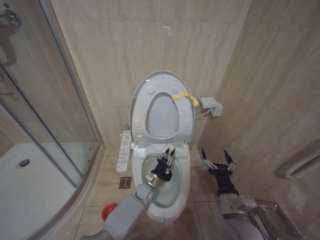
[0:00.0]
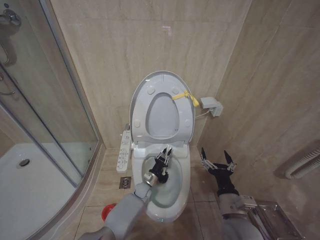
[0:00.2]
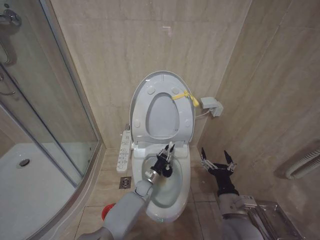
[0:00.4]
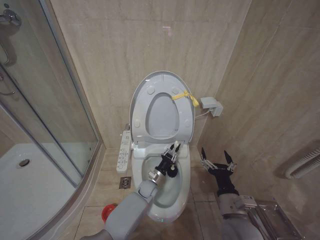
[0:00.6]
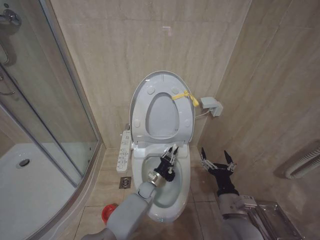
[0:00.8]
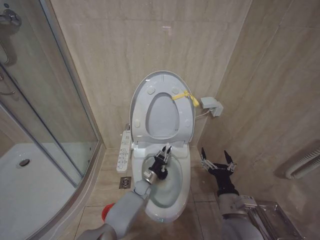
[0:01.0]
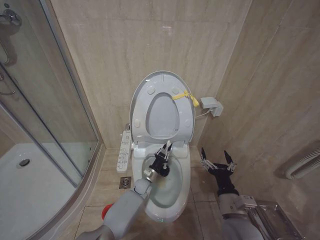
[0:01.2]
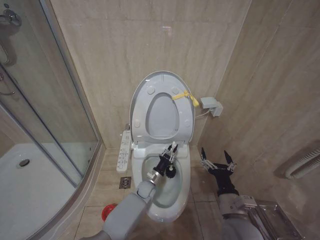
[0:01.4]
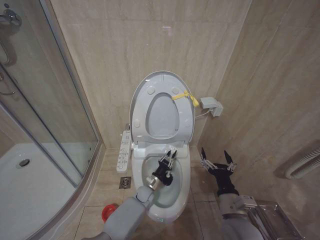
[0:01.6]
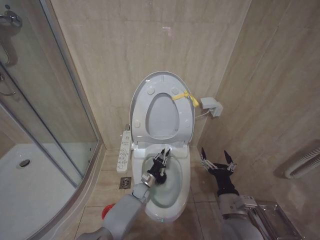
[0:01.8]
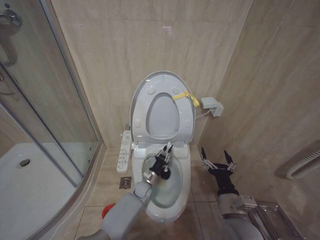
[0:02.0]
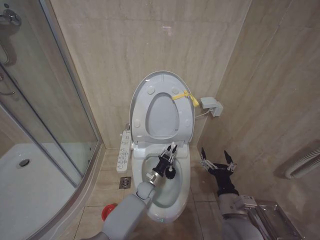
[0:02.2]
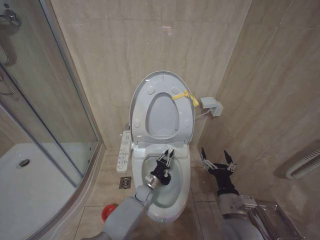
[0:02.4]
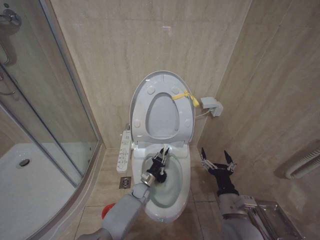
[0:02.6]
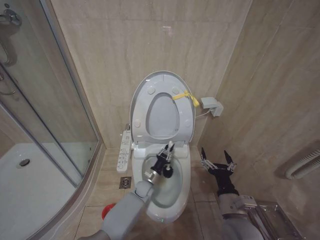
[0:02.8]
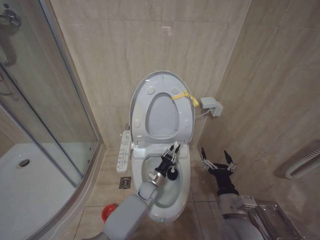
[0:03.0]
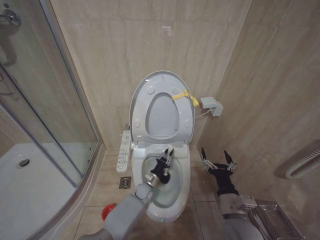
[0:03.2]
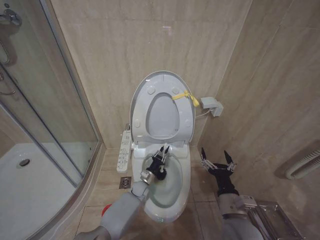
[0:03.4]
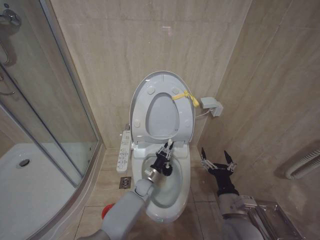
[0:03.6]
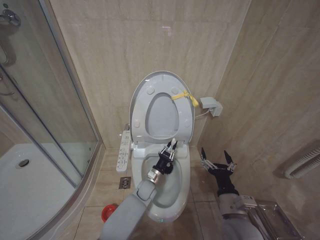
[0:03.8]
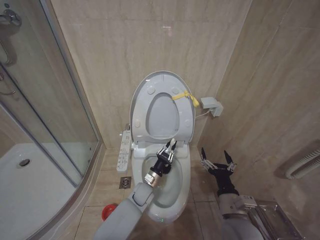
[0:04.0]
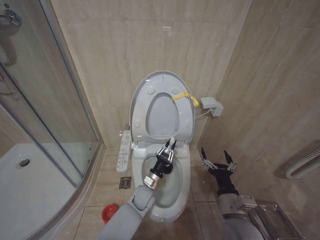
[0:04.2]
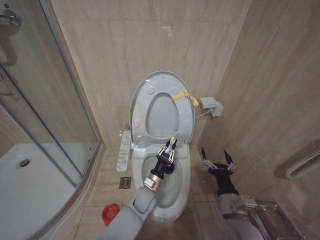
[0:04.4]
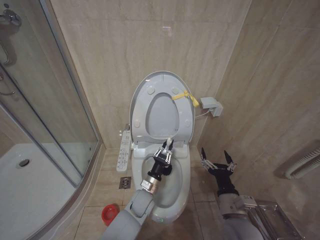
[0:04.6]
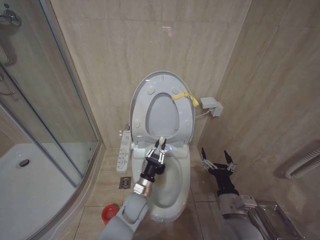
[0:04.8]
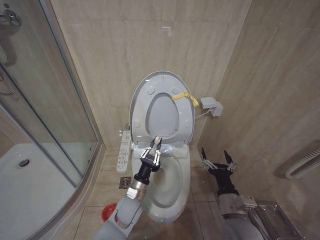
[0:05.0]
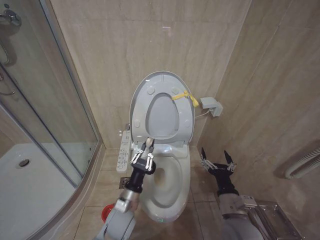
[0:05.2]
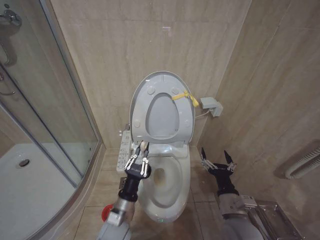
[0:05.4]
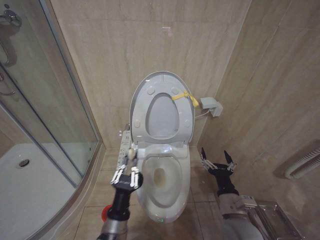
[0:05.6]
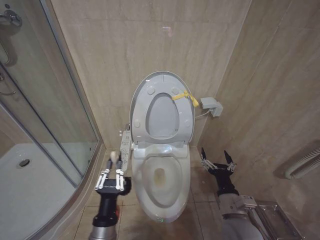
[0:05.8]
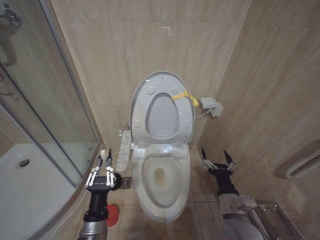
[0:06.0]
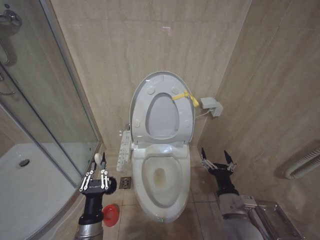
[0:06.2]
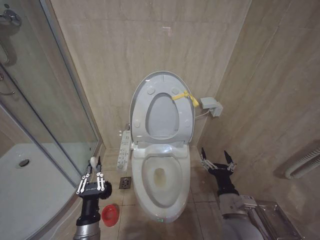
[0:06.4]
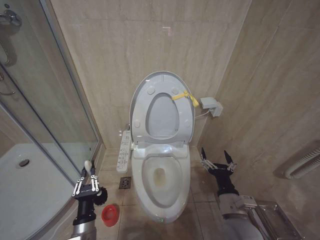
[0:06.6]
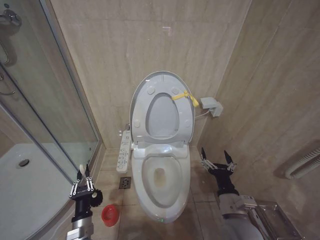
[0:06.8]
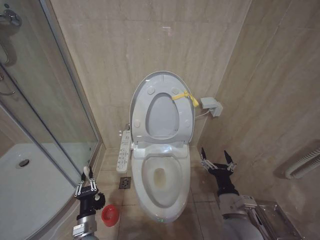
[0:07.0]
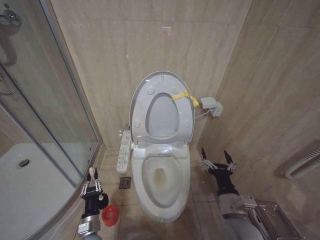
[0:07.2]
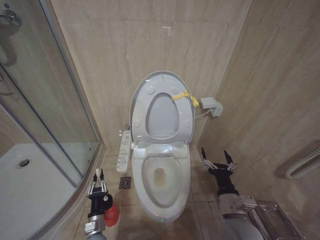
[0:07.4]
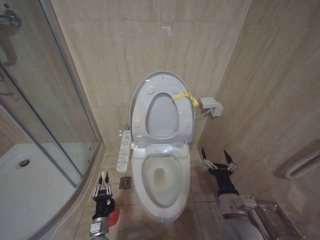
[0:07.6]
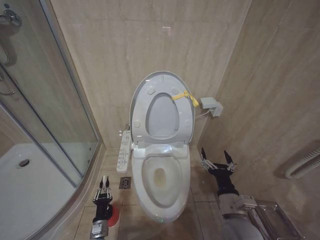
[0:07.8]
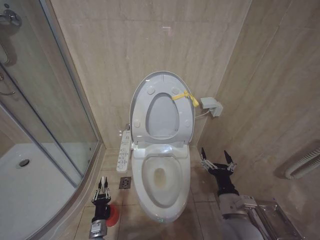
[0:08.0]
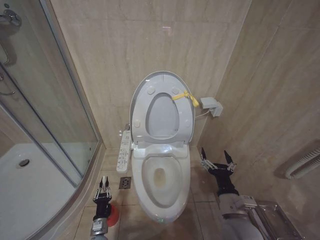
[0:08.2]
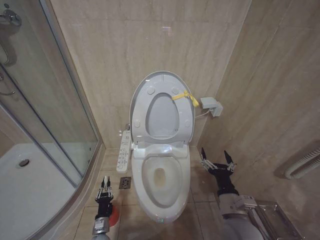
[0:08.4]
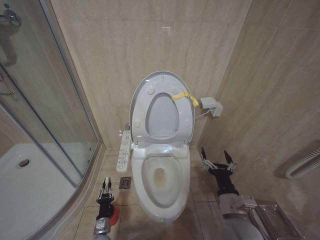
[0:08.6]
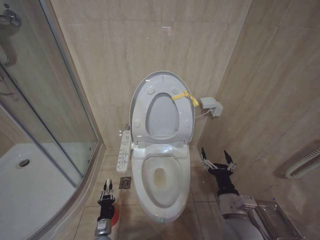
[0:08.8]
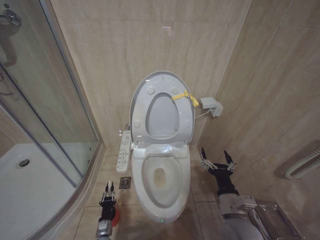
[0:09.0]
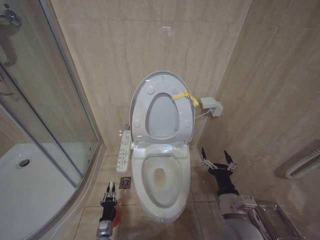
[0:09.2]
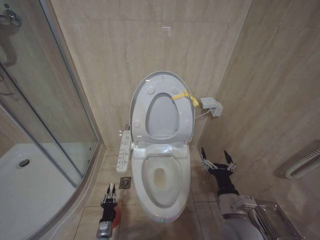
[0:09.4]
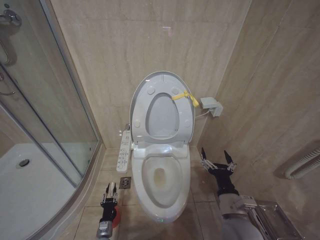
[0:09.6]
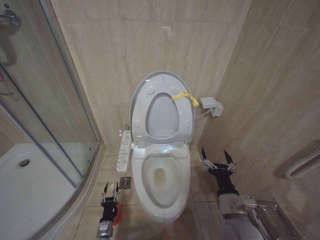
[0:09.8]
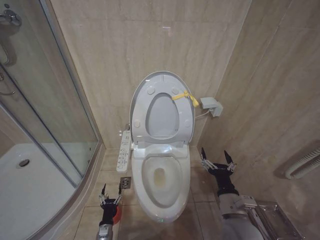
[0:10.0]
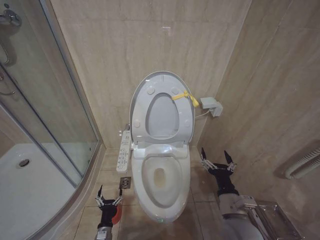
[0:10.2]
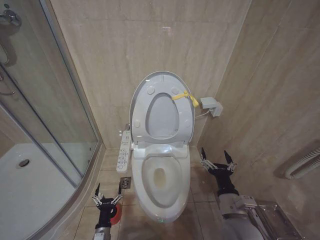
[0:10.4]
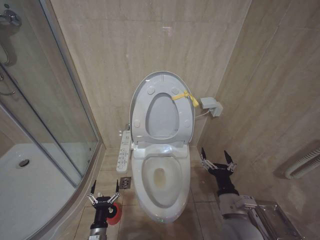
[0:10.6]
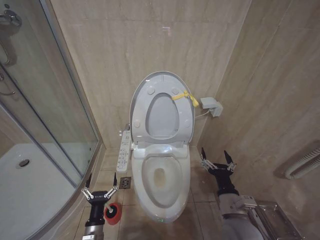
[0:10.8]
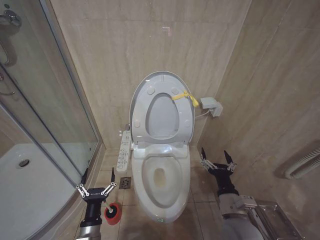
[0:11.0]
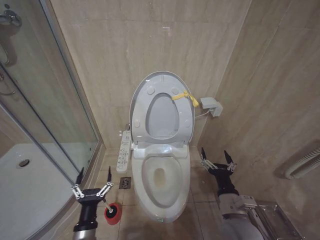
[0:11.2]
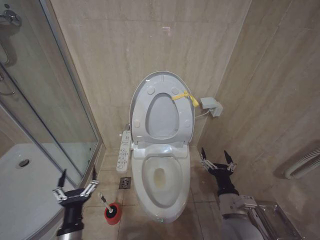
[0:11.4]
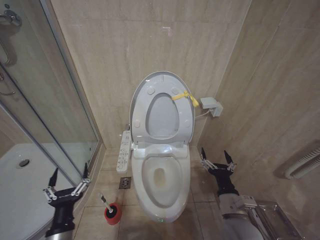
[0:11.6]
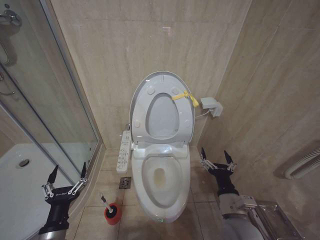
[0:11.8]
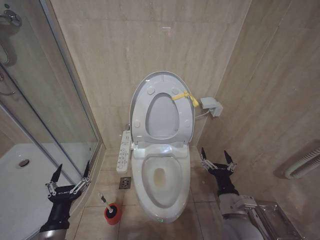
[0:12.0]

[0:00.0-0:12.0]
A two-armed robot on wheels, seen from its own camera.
Task of the whole recording: Open the toilet lid, clean the toilet bowl with a toilet brush, close the toilet lid, and flush.
0:01.6 to 0:03.0: The grippers stay close to where they were, moving slightly.
0:03.0 to 0:04.4: The left gripper travels upward and backward by some 10 cm.
0:04.4 to 0:06.0: The left gripper heads backward, to the left and upward, covering about 25 cm.
0:06.0 to 0:07.6: The left gripper goes about 20 cm downward.
0:07.6 to 0:09.0: The left gripper moves downward, some 10 cm.
0:09.0 to 0:10.4: The left gripper is displaced upward by approximately 5 cm, and opens.
0:10.4 to 0:12.0: The left gripper heads upward, covering approximately 25 cm.

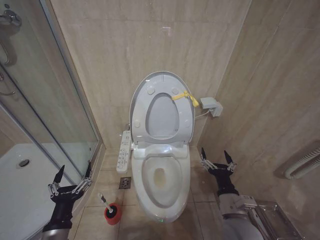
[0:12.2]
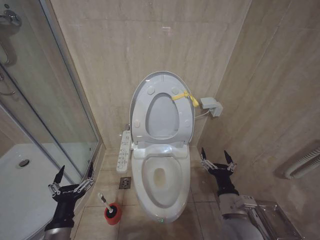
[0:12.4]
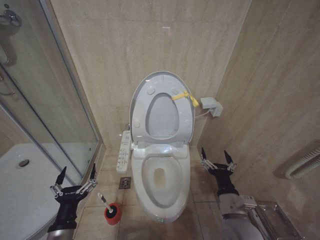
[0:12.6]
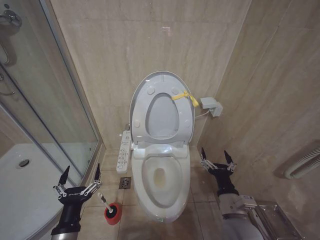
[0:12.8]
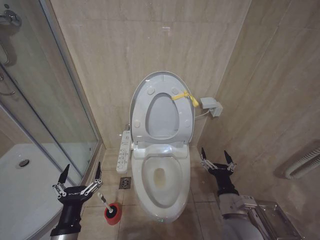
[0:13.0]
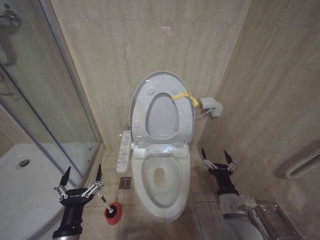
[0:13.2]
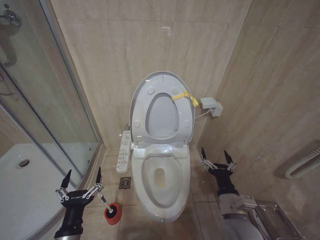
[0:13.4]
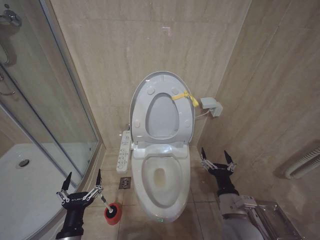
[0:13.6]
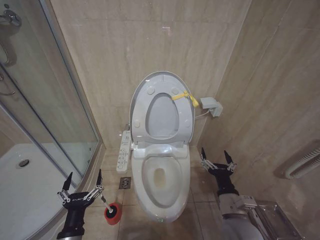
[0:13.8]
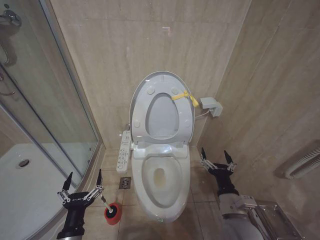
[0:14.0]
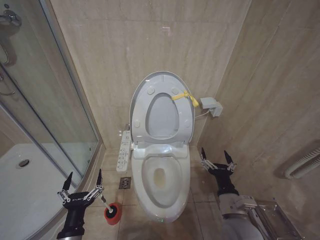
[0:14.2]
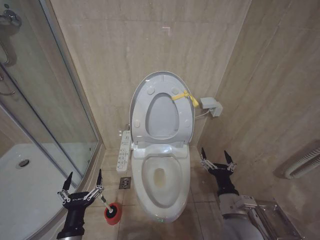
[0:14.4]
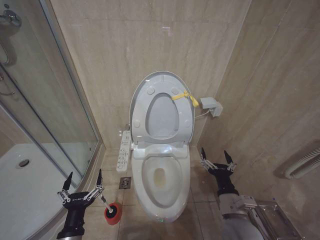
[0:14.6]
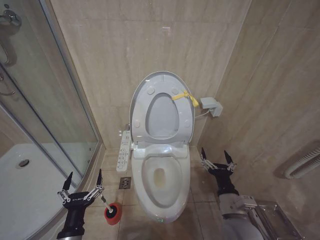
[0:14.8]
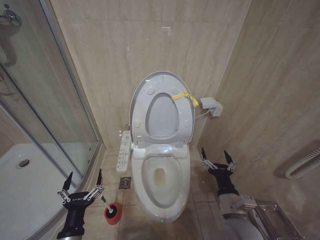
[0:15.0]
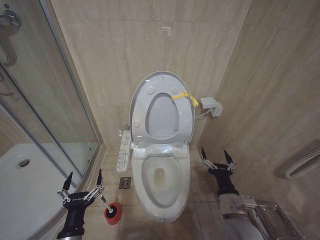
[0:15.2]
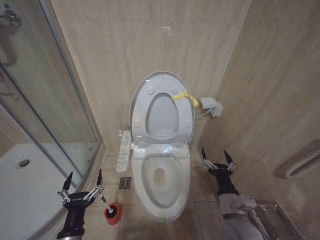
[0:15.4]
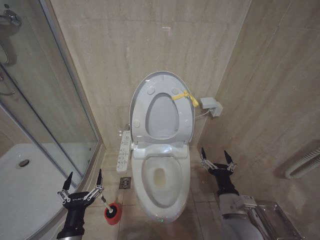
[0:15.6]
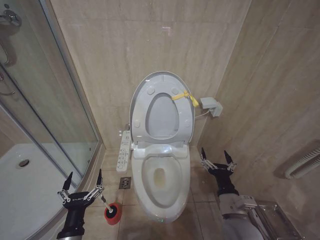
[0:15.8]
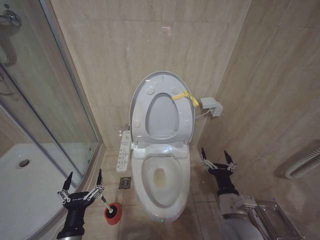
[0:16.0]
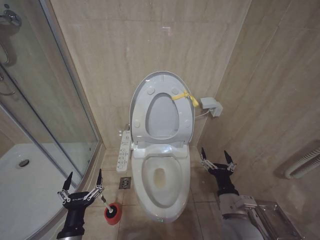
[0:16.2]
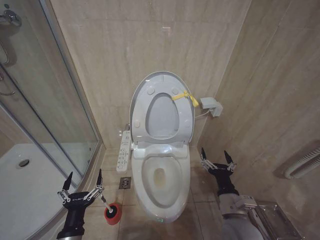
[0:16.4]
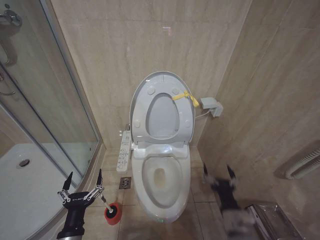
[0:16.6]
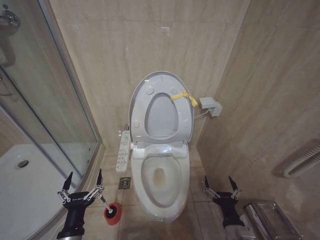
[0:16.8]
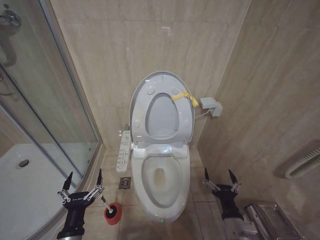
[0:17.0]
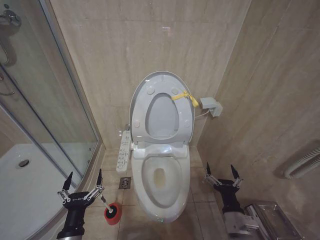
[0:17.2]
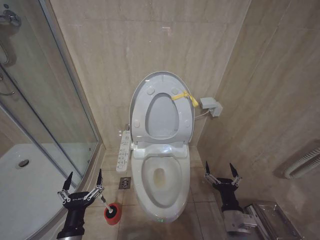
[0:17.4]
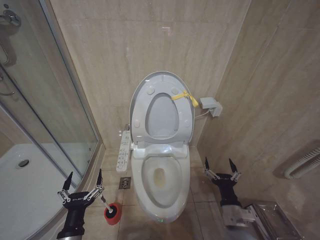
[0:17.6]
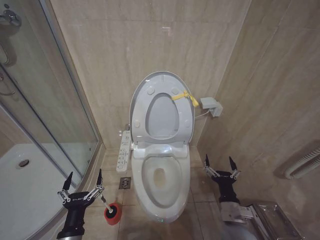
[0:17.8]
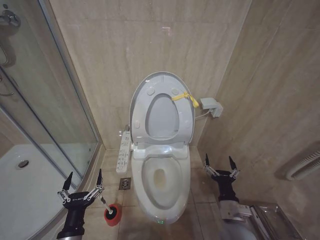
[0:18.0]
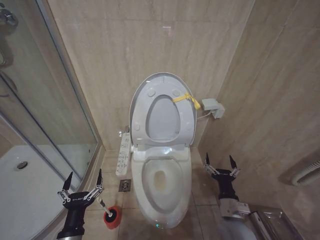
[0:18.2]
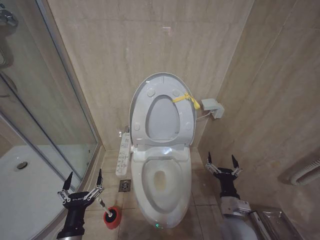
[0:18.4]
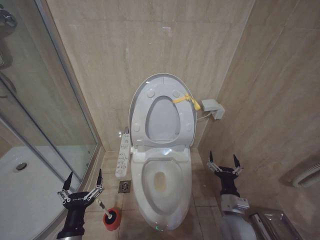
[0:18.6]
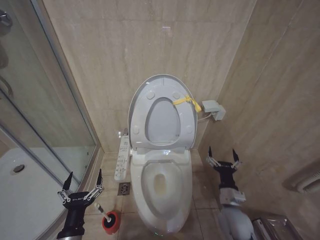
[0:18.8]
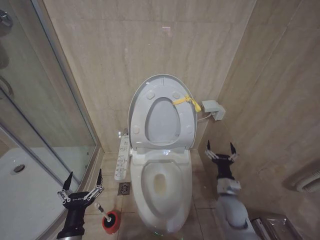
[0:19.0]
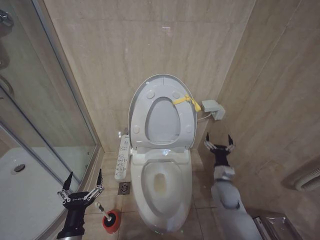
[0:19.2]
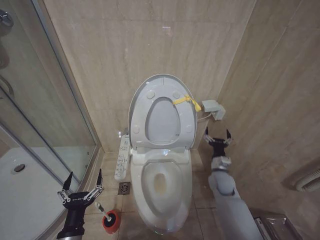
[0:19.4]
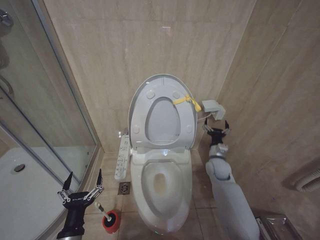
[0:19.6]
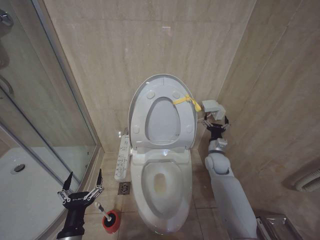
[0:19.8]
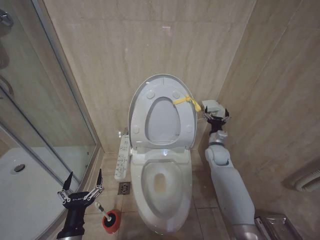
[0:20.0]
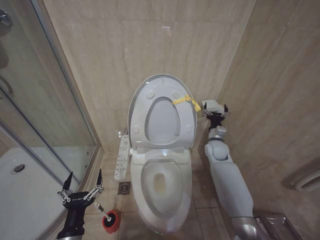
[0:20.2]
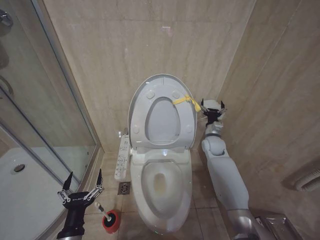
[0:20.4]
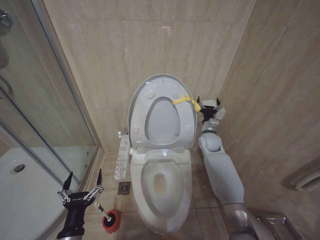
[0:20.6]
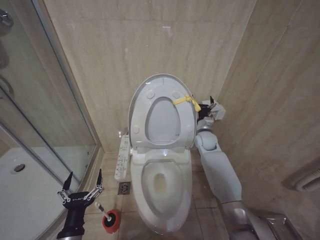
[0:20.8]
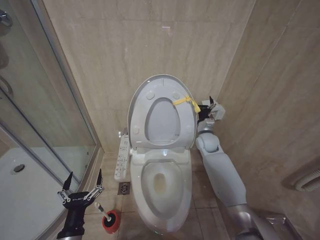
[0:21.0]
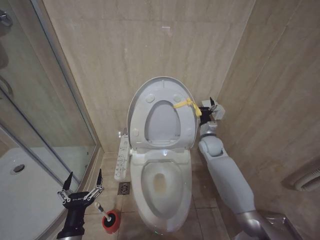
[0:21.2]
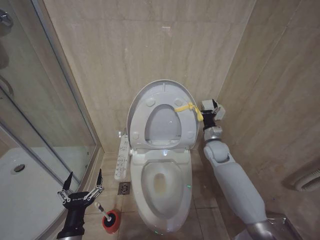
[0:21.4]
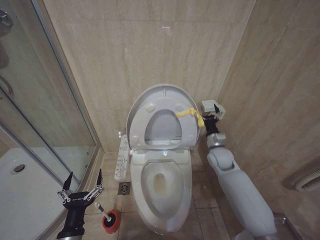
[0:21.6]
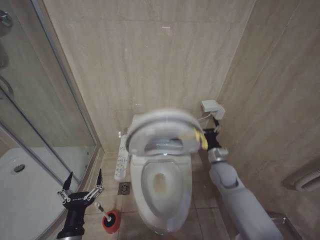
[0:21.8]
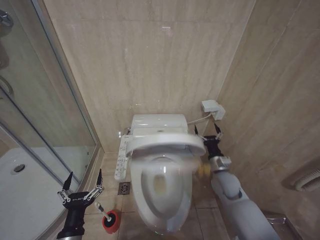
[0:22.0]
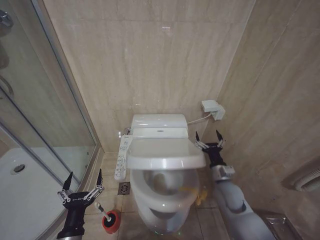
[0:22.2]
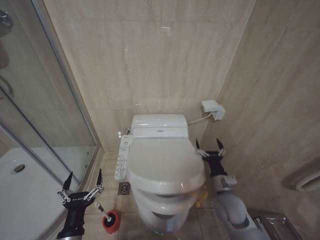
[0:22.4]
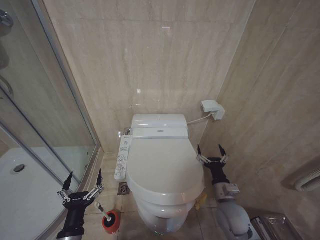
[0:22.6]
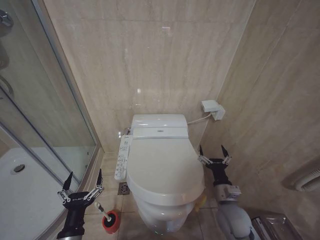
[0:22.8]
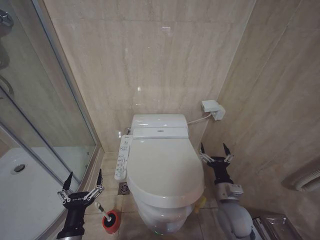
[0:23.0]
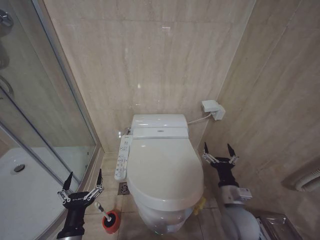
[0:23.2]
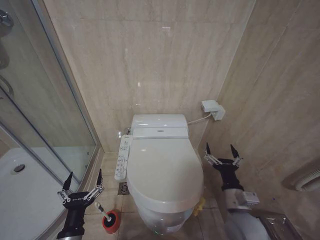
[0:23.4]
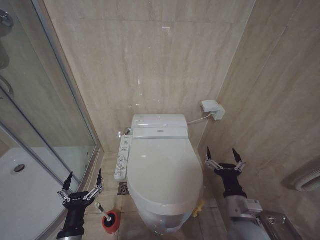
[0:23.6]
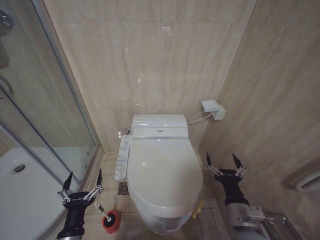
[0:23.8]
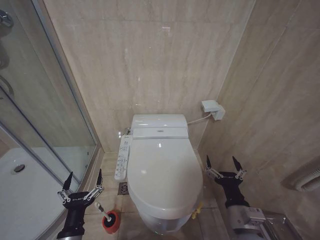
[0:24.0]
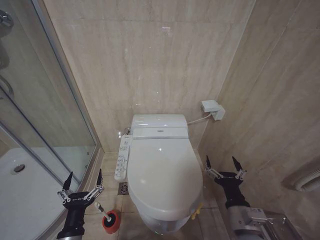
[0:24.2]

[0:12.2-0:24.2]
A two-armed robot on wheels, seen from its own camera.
Task of the whole recording: Open the toilet lid, clean the toilet bowl with a toilet brush, close the toilet lid, and flush.
0:12.2 to 0:13.8: The grippers stay close to where they were, moving slightly.
0:13.8 to 0:15.2: Both grippers stay put.
0:15.2 to 0:16.6: The grippers make only small movements.
0:16.6 to 0:18.2: The right gripper moves about 5 cm.
0:18.2 to 0:19.8: The right gripper heads forward, covering approximately 25 cm.
0:19.8 to 0:21.2: The right gripper shifts about 10 cm upward and forward.
0:21.2 to 0:22.6: The right gripper shifts some 25 cm backward and downward.
0:22.6 to 0:24.2: The right gripper travels backward and upward by some 15 cm.
